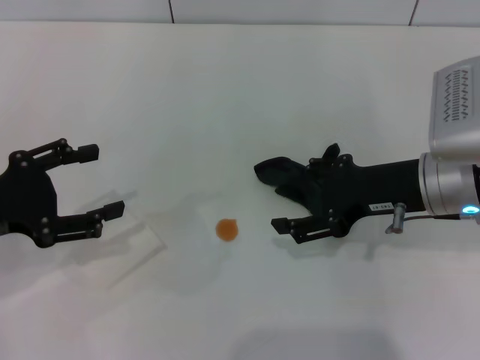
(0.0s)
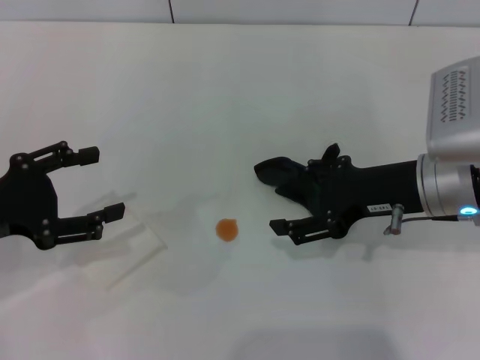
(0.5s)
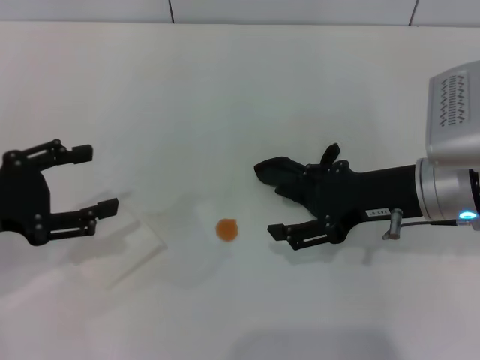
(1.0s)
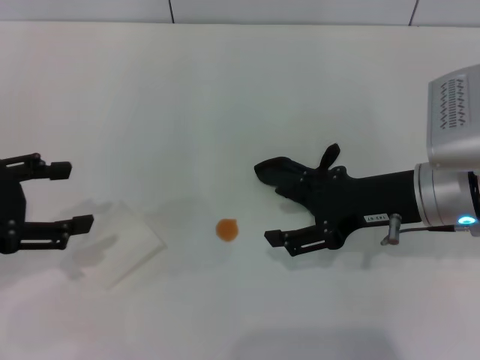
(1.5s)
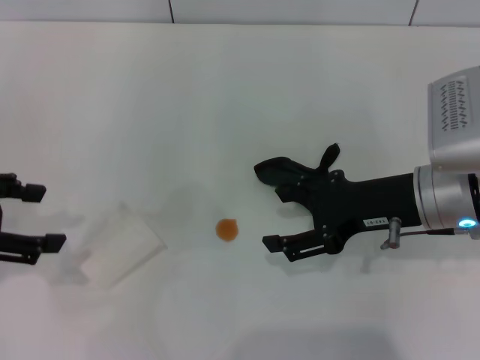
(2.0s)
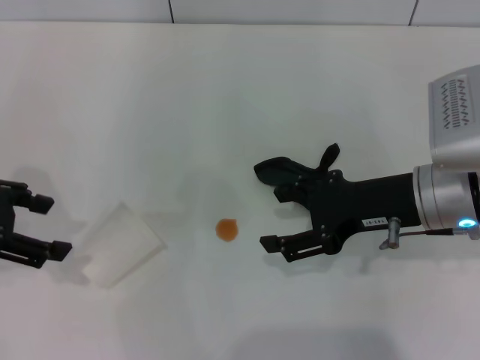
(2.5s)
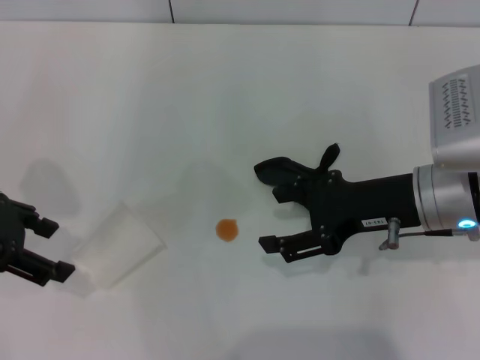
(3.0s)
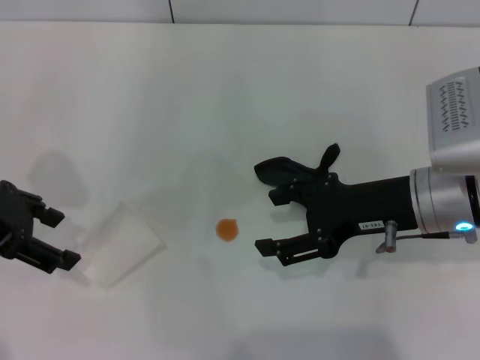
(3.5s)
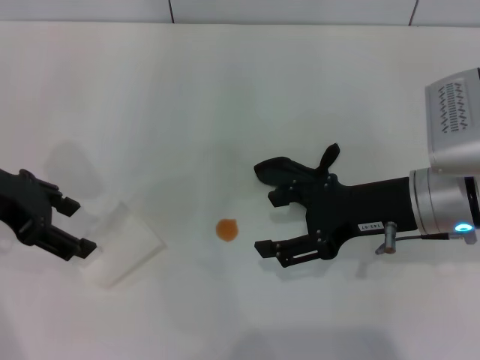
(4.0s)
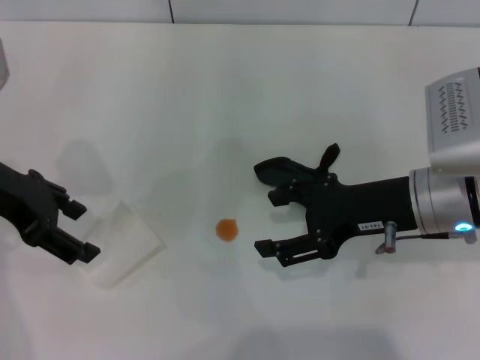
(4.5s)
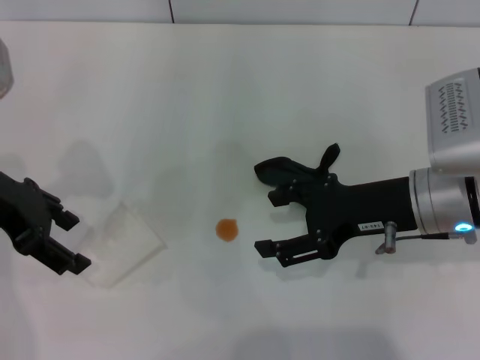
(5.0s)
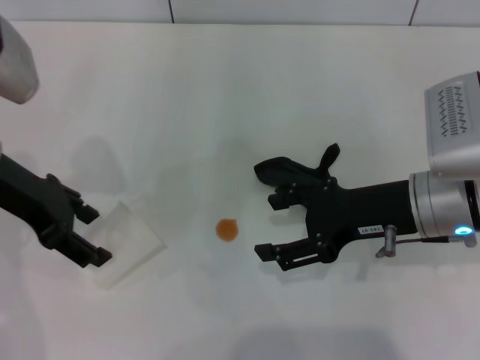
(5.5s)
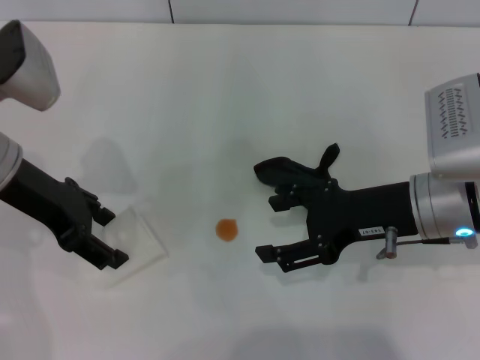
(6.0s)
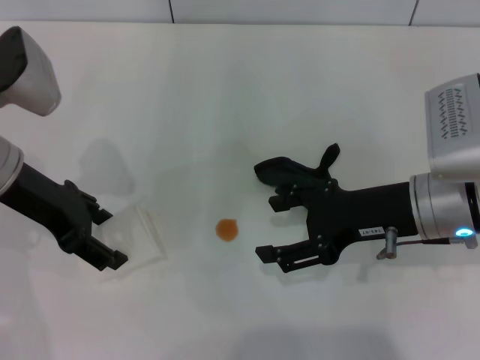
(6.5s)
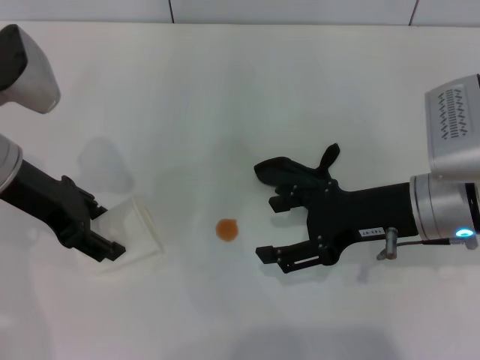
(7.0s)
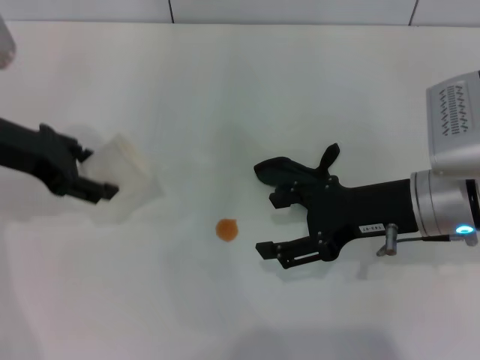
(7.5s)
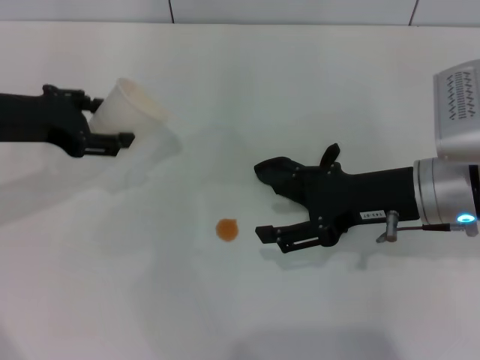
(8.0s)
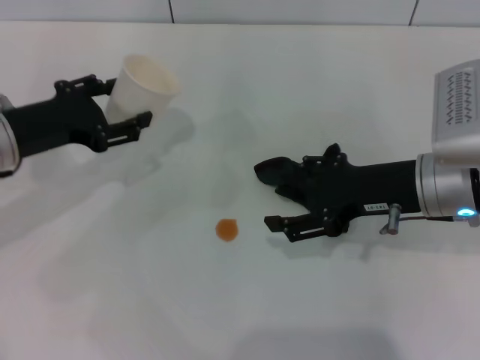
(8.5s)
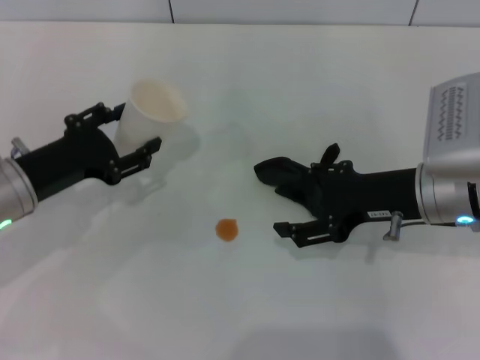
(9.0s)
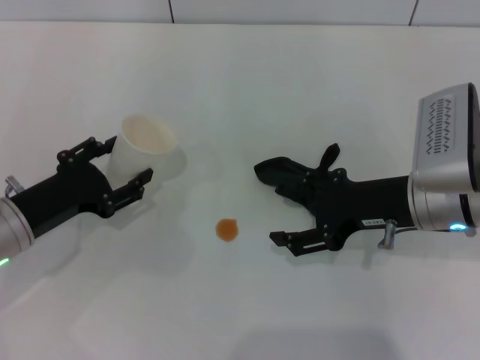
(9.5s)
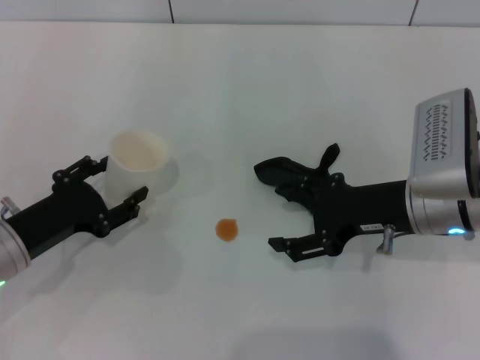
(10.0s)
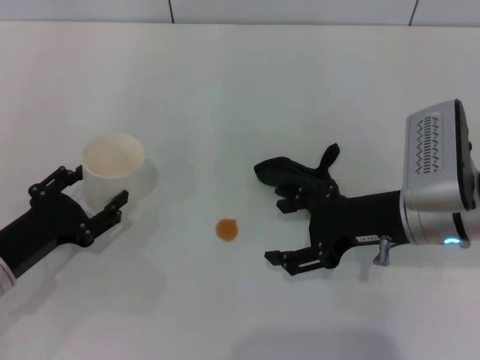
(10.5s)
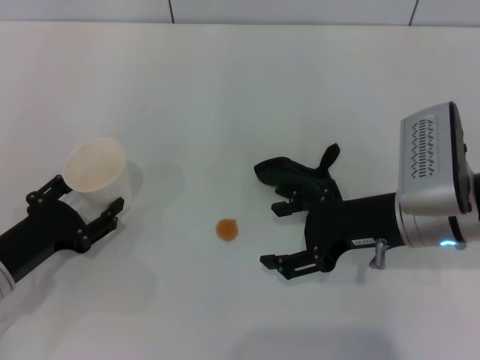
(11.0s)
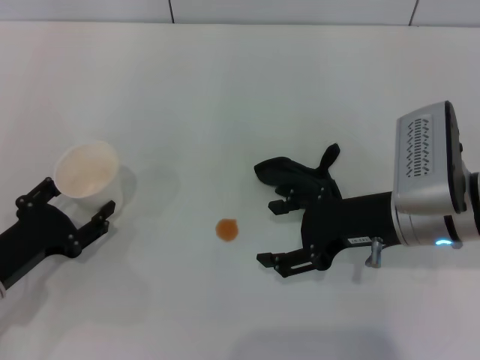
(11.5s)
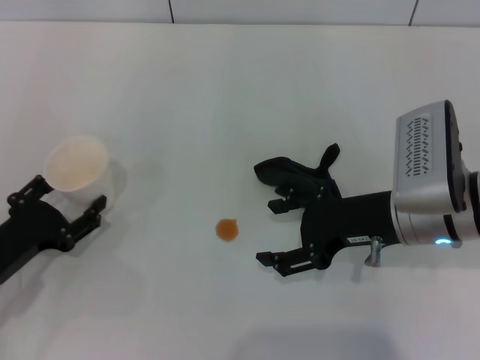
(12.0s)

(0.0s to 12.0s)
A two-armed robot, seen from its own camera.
Step, 0.0s - 7.0s: Grasp the paper cup with the left gripper.
0.0s - 2.0s: The left gripper travels upward by approximately 5 cm.
2.0s - 4.0s: The left gripper goes some 10 cm forward and to the right.
4.0s - 6.0s: The left gripper closes its fingers.
6.0s - 8.0s: The left gripper closes.
8.0s - 10.0s: The left gripper heads downward and backward, covering approximately 15 cm.
10.0s - 12.0s: There are only small adjustments of the grippers.

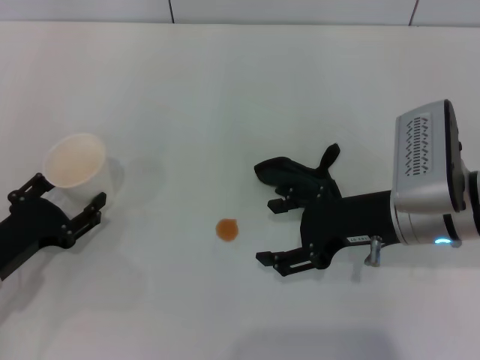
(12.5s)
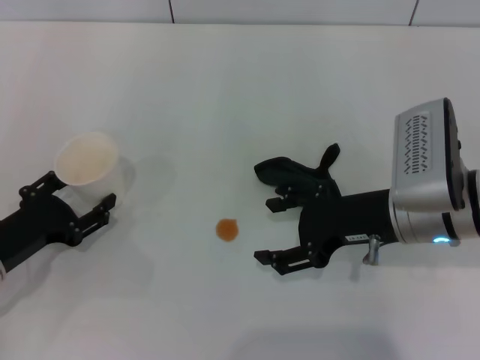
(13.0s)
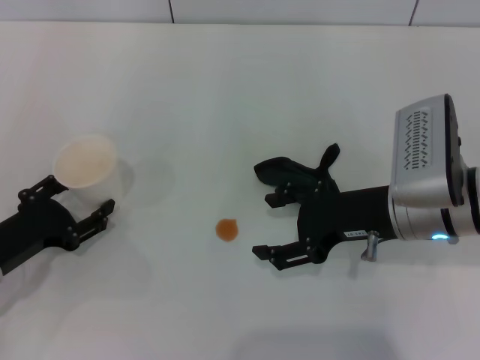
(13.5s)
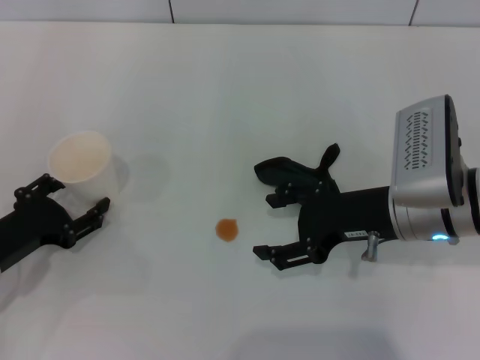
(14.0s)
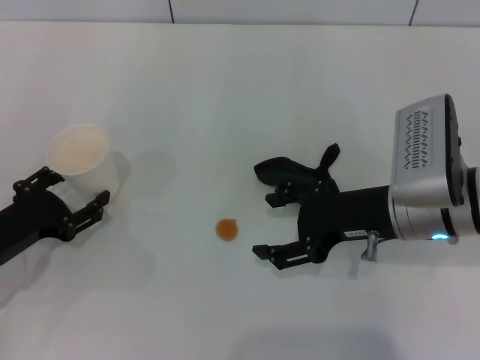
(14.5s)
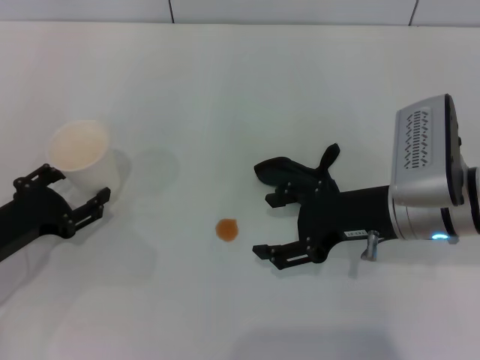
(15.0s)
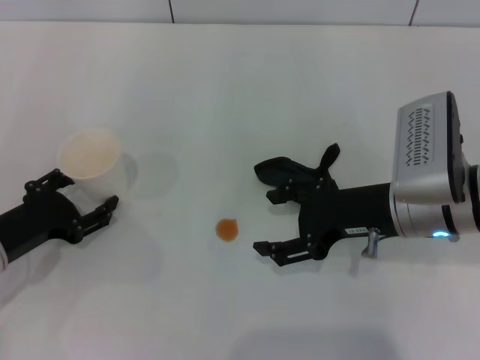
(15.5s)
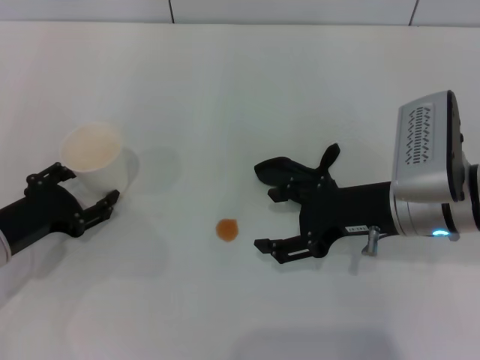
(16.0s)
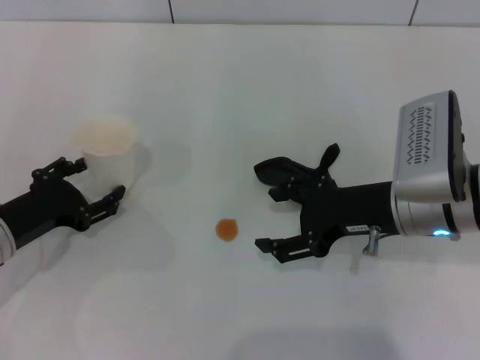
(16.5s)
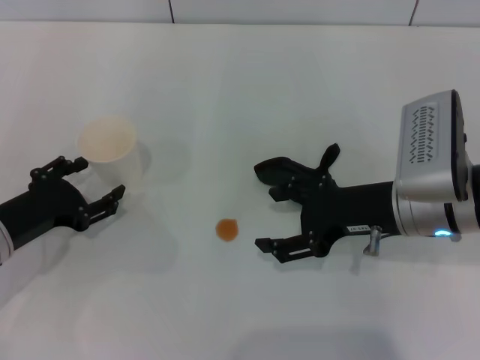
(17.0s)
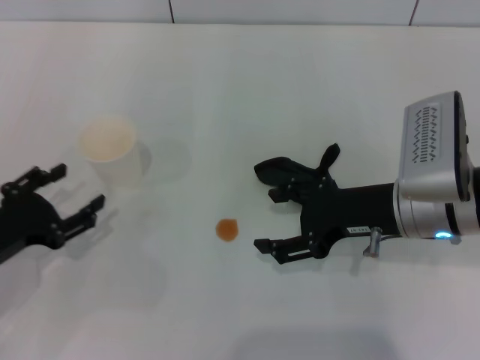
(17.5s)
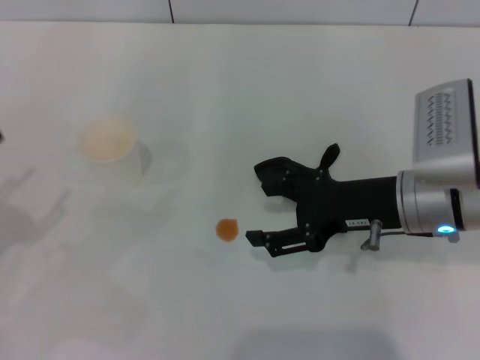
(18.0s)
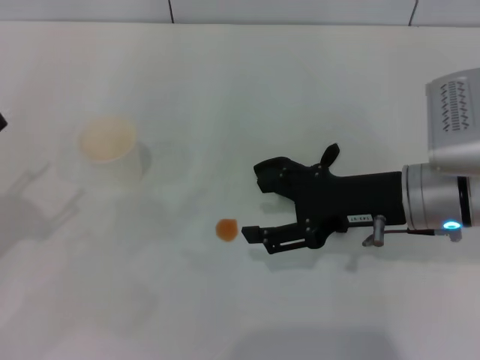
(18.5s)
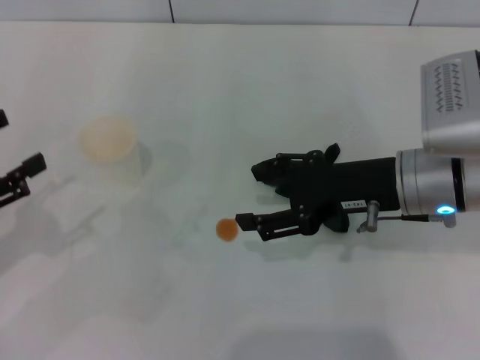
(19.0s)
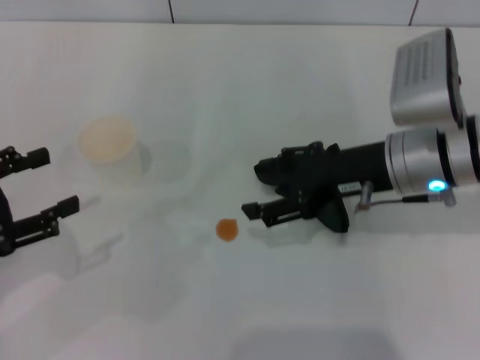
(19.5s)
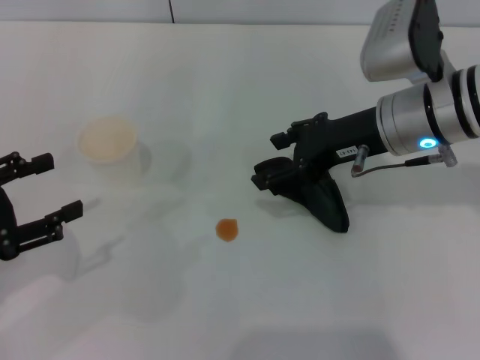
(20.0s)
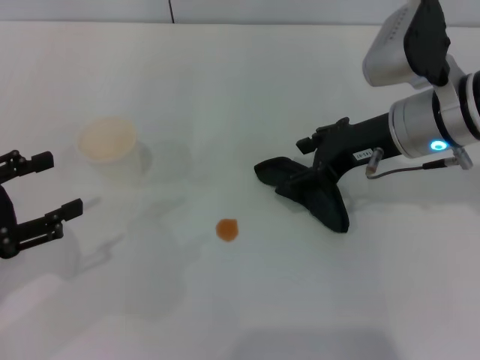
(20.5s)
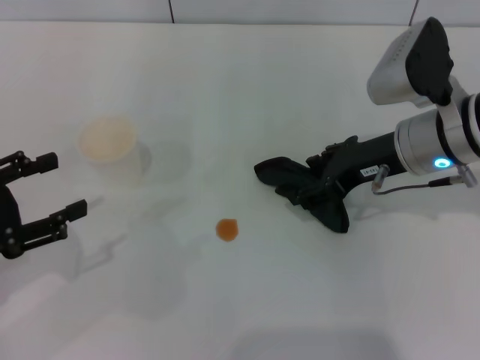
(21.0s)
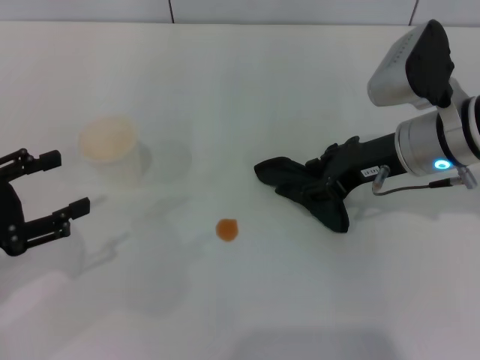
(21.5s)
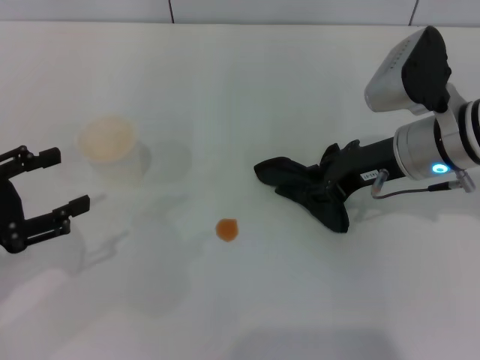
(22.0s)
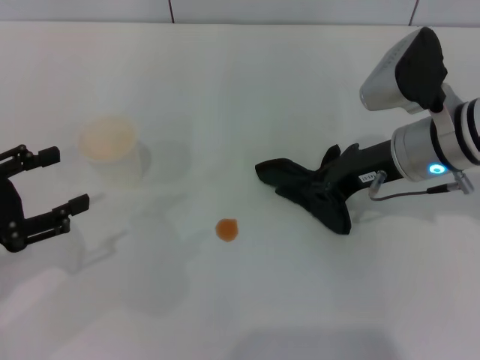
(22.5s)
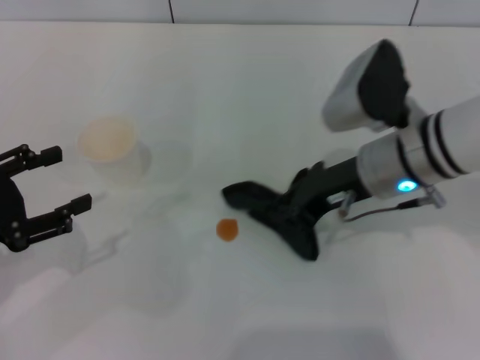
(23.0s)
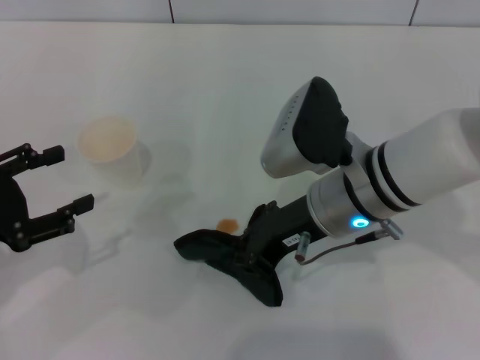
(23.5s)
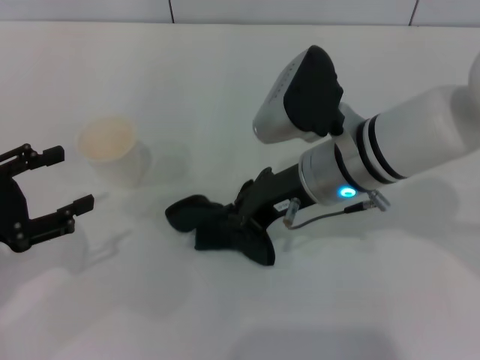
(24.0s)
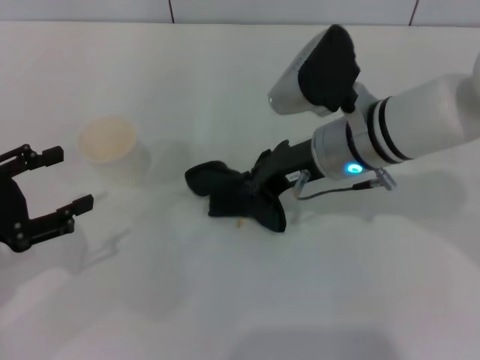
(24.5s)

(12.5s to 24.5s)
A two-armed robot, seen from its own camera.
Step, 12.5s - 17.5s: Stand the paper cup upright with the left gripper.
Step, 18.0s - 22.5s: Grasp the rag with the right gripper.
12.5s - 16.5s: The grippers make only small movements.
16.5s - 18.5s: The left gripper travels upward, to the left and backward by roughly 15 cm.
18.5s - 20.5s: The right gripper goes approximately 5 cm forward.
20.5s - 22.5s: The right gripper closes.
22.5s - 24.5s: The right gripper heads to the left, covering about 10 cm.

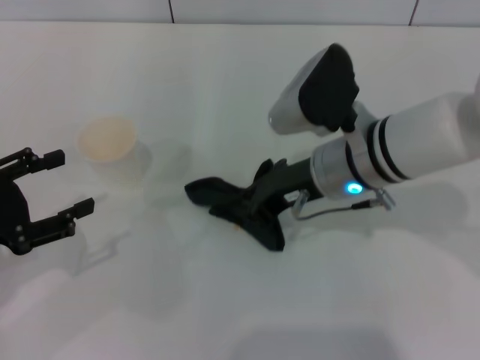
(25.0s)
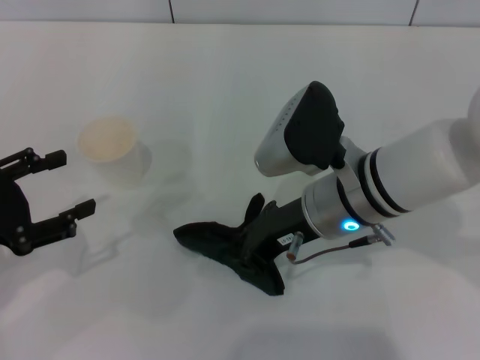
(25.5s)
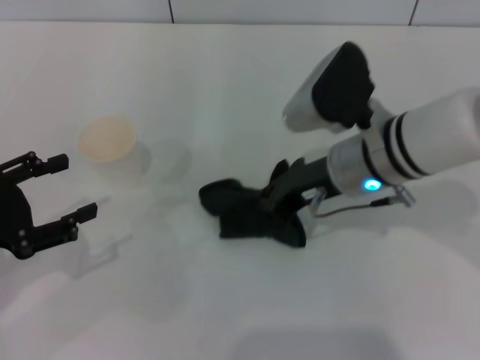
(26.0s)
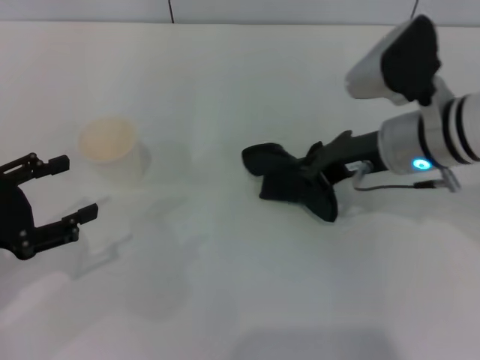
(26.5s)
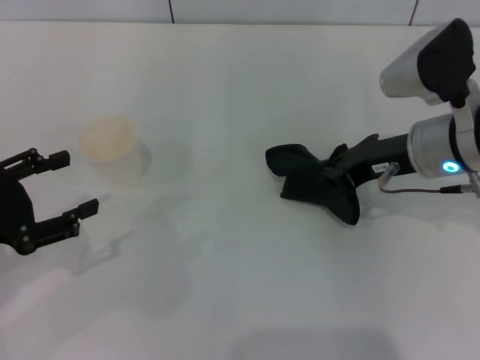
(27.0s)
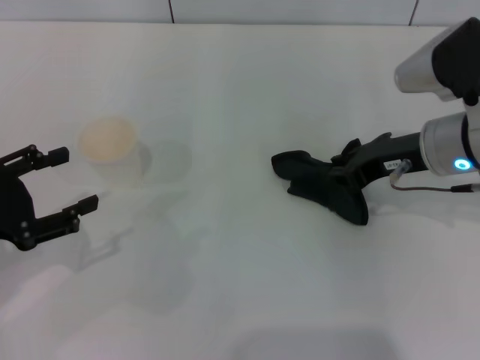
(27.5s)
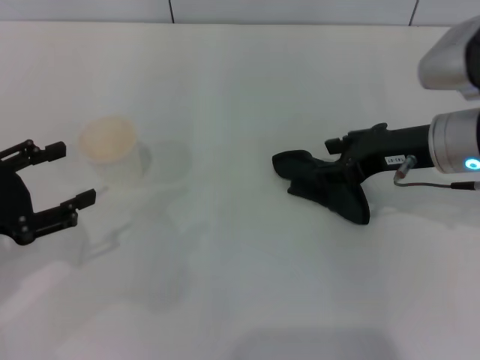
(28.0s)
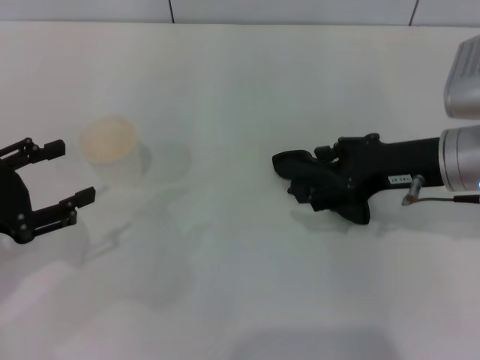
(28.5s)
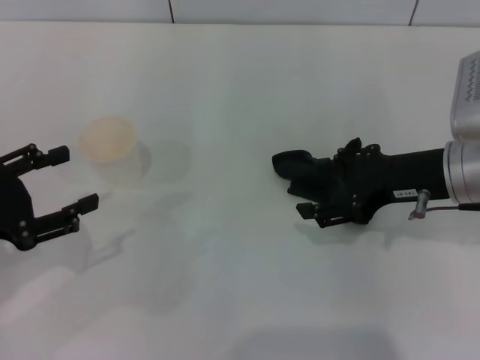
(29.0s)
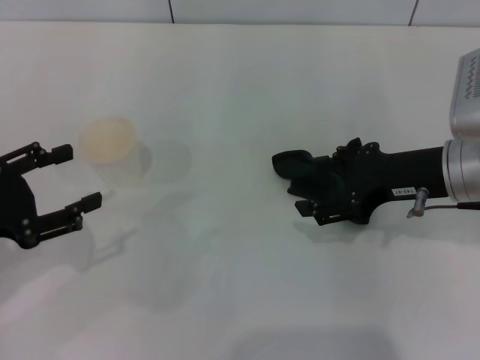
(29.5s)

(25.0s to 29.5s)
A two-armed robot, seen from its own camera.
Step, 25.0s - 27.0s: Wipe the stains off the table with the right gripper.
Step, 27.5s - 28.0s: Place the rag on the table with the right gripper.
25.0s - 27.0s: The right gripper travels to the right by approximately 10 cm.
27.0s - 29.5s: The right gripper opens its fingers.
